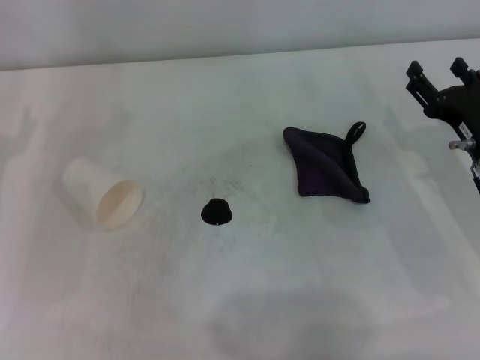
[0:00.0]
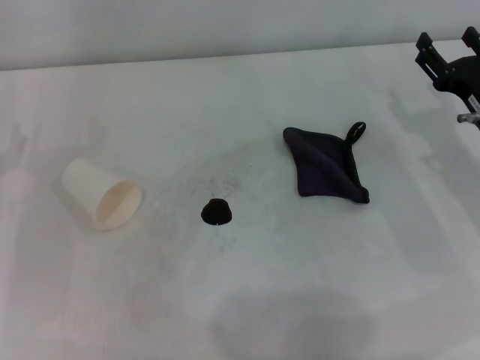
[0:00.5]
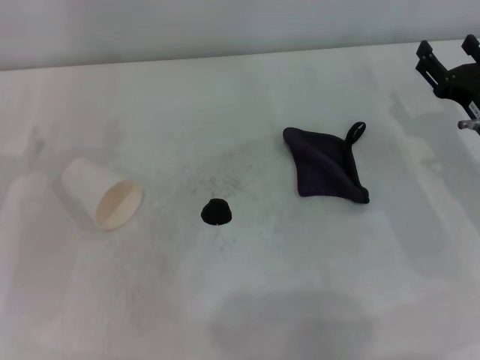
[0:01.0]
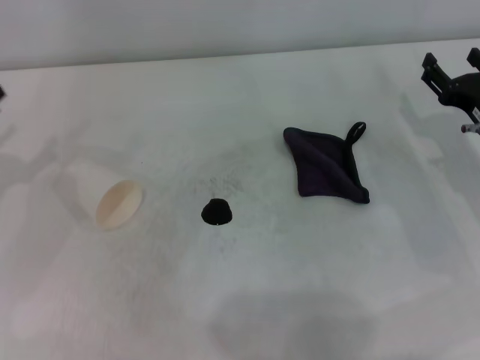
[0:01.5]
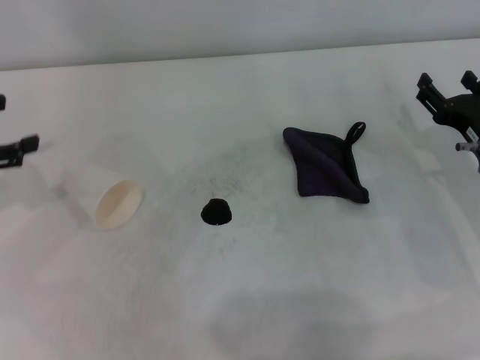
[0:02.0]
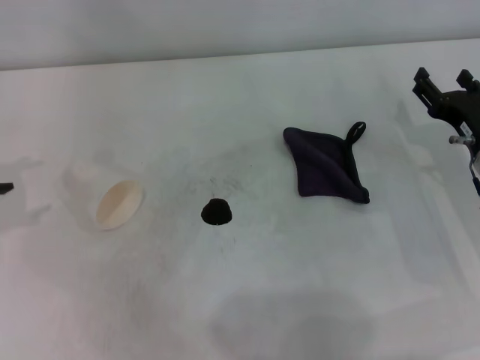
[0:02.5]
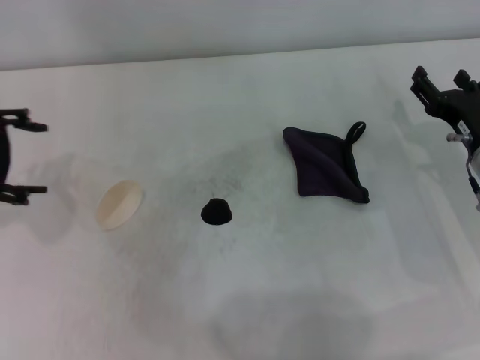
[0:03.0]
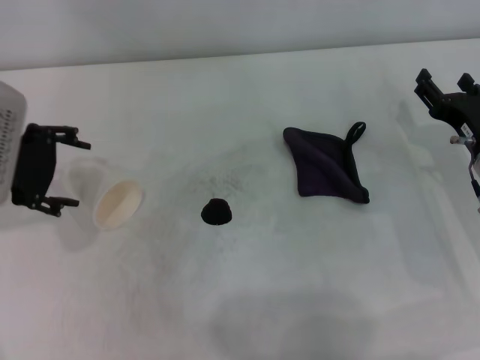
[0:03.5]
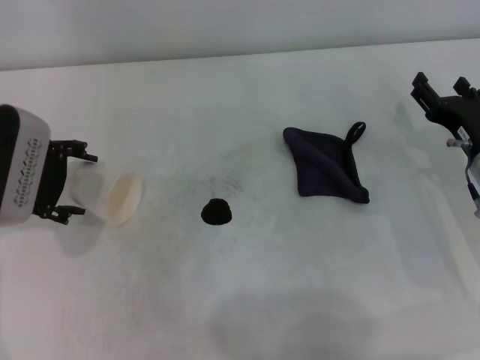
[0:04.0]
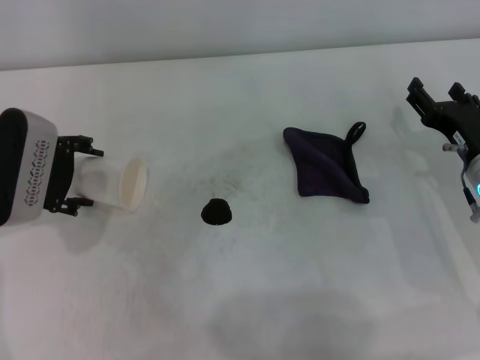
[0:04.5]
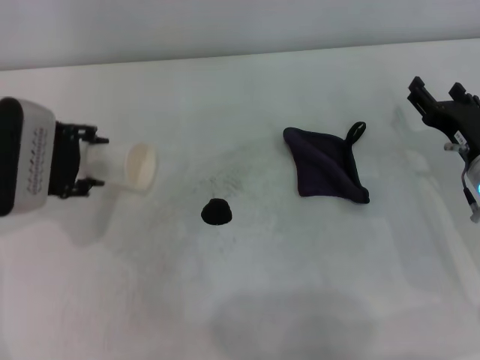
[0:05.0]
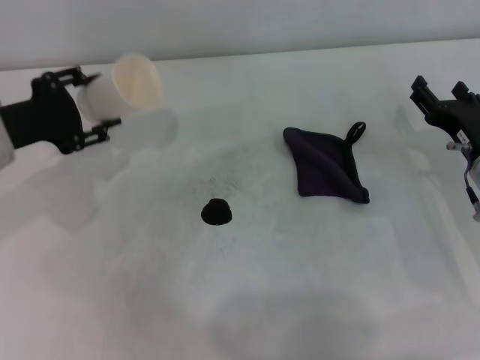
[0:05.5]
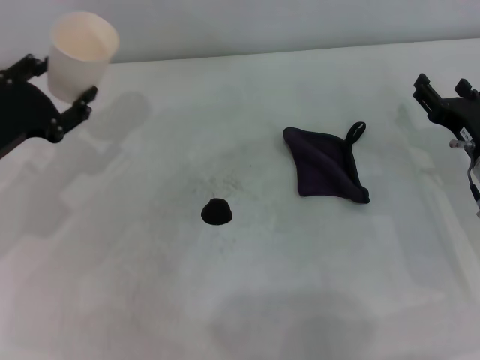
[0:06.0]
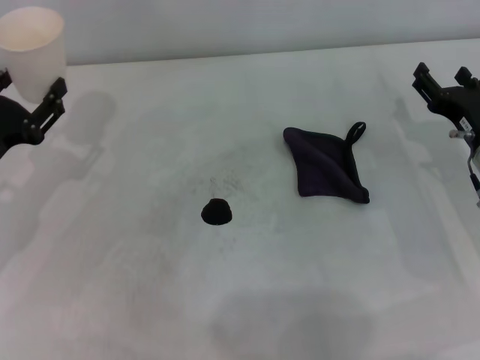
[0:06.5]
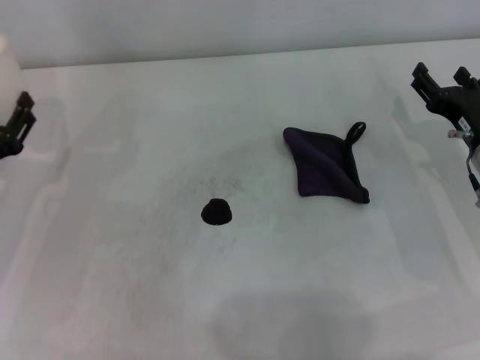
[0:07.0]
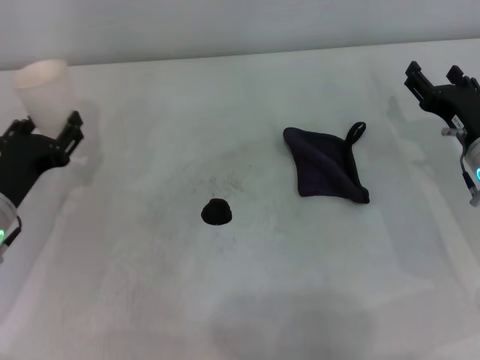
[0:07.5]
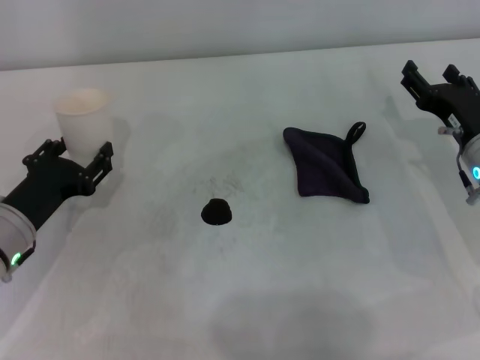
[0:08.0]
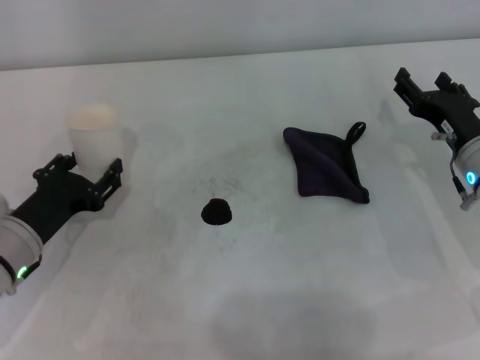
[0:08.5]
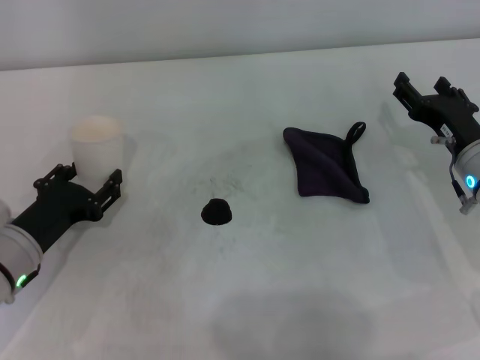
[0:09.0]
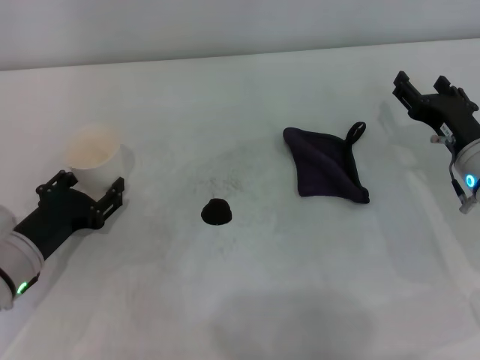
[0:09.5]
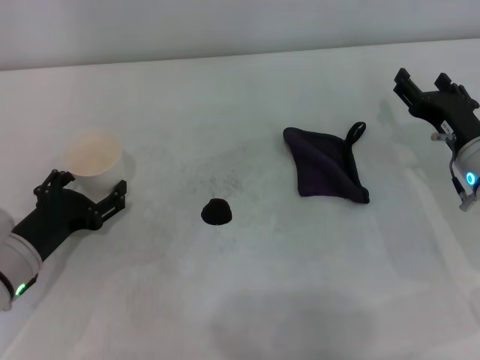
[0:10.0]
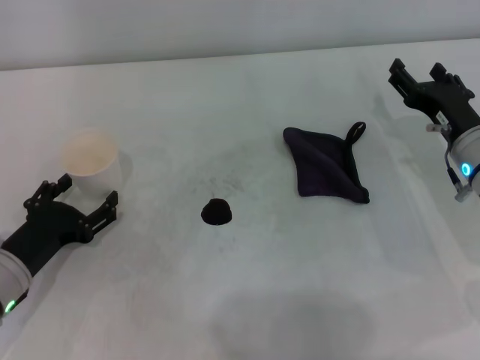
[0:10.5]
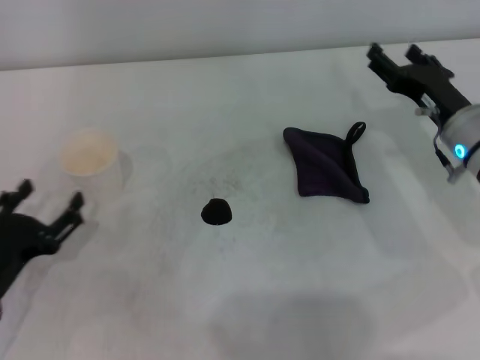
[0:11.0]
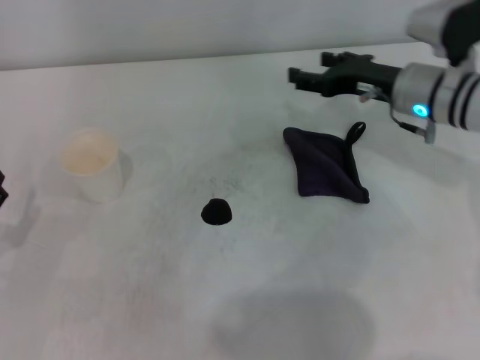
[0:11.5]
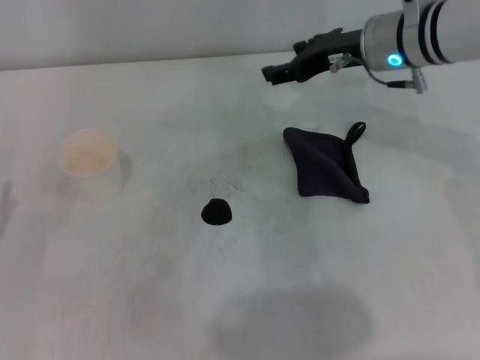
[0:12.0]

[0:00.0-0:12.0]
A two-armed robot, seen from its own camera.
Step, 0:00.0 to 0:04.5: Grasp the paper cup with the left gripper.
Step, 0:05.0 to 0:09.5: Stand the paper cup upright with the left gripper.
0:02.0 to 0:04.0: The left gripper travels to the right by roughly 10 cm.
0:04.0 to 0:06.0: The left gripper closes up.
0:06.0 to 0:08.0: The left gripper shifts some 5 cm downward.
0:08.0 to 0:10.0: The left gripper opens.
0:10.0 to 0:12.0: The right gripper moves upward, forward and to the left, approximately 20 cm. Meanwhile the left gripper travels to the left and backward by approximately 10 cm.

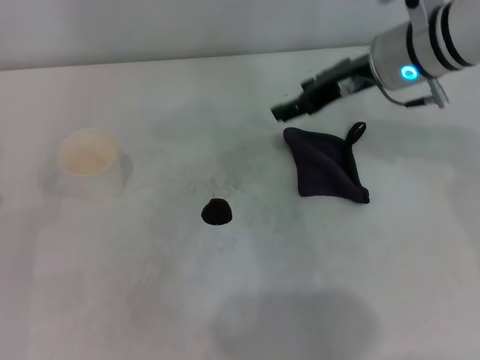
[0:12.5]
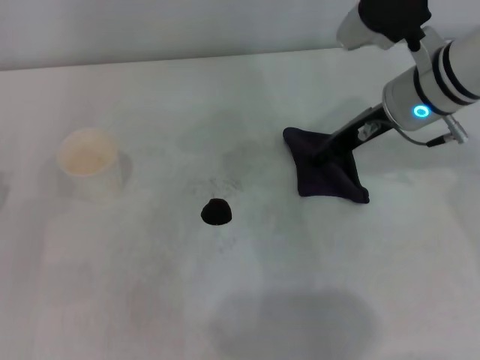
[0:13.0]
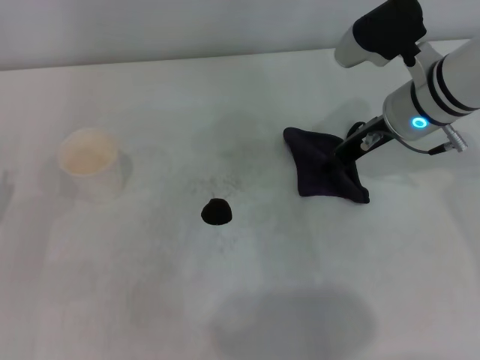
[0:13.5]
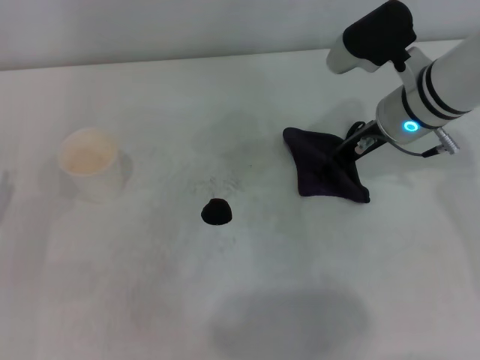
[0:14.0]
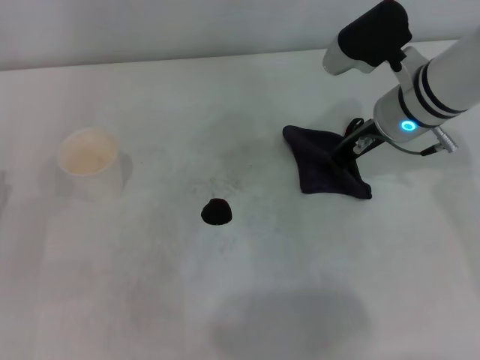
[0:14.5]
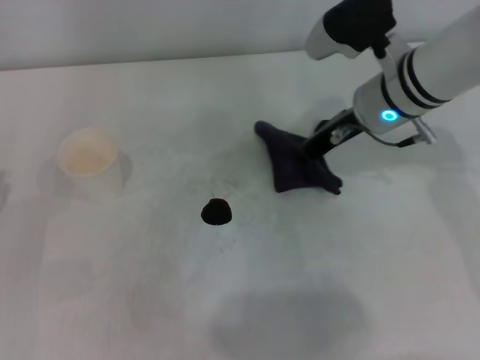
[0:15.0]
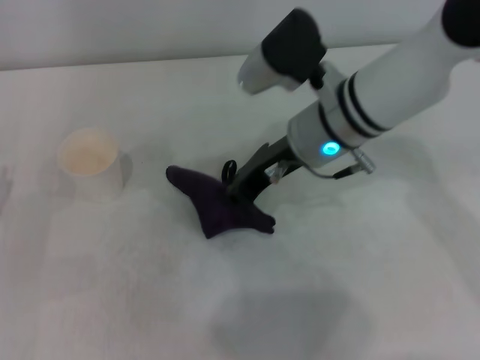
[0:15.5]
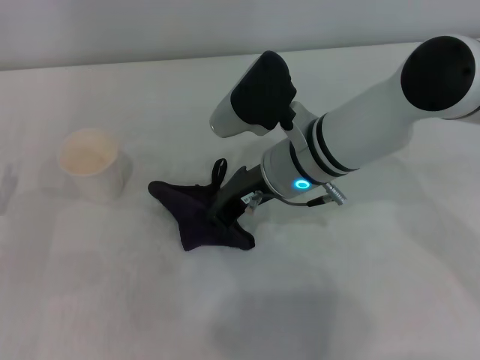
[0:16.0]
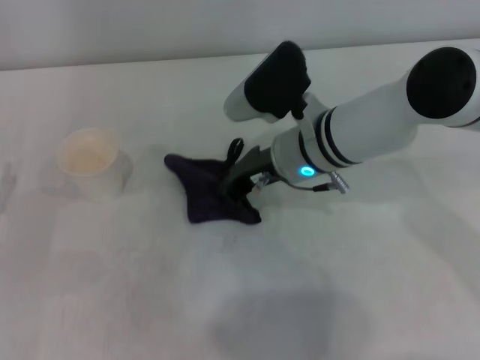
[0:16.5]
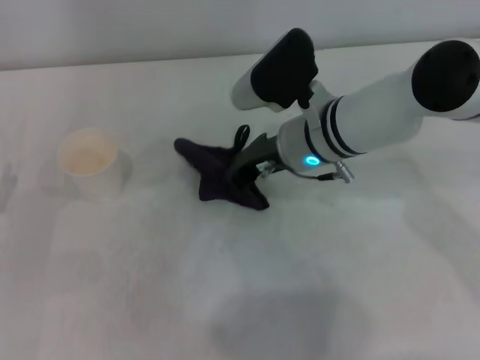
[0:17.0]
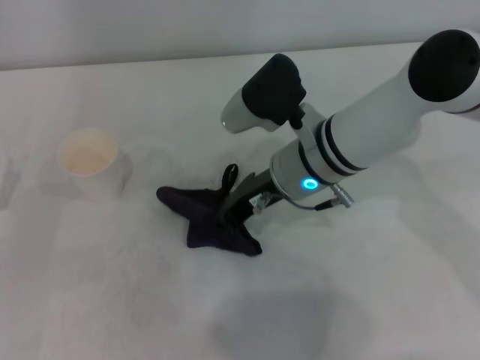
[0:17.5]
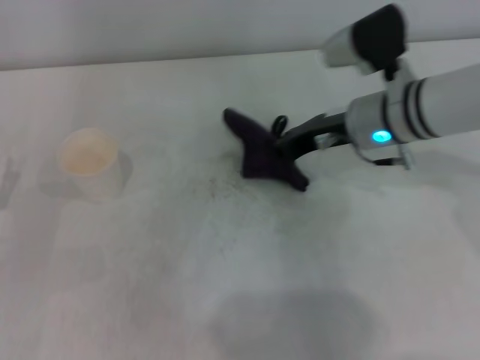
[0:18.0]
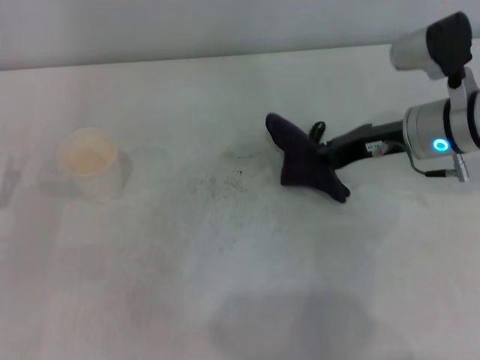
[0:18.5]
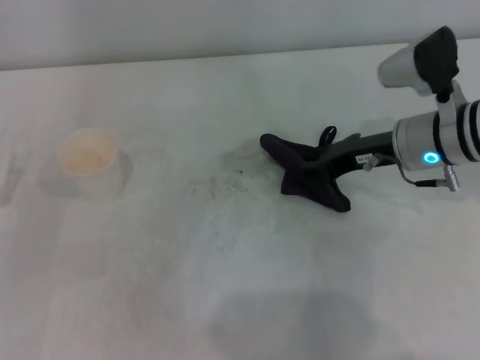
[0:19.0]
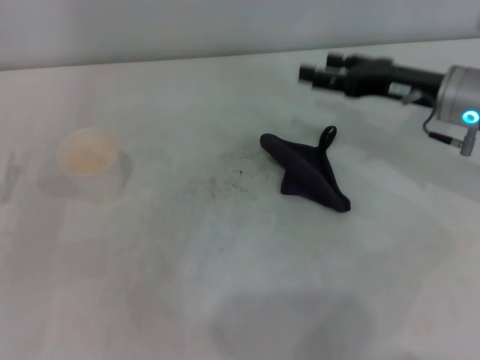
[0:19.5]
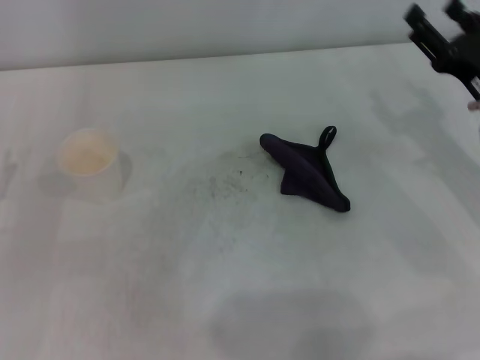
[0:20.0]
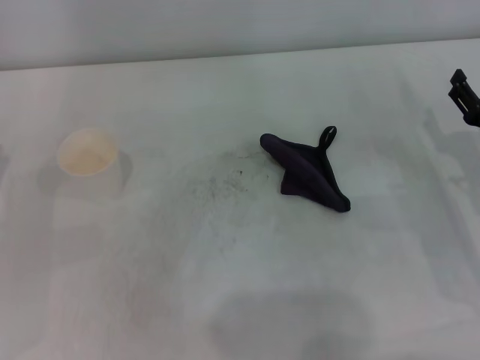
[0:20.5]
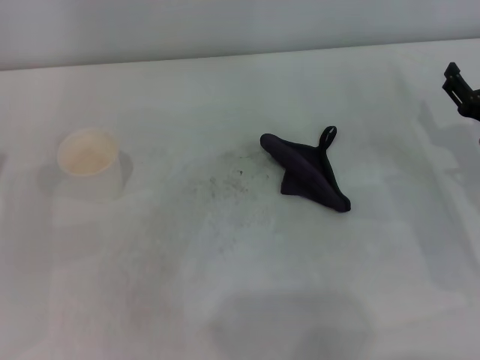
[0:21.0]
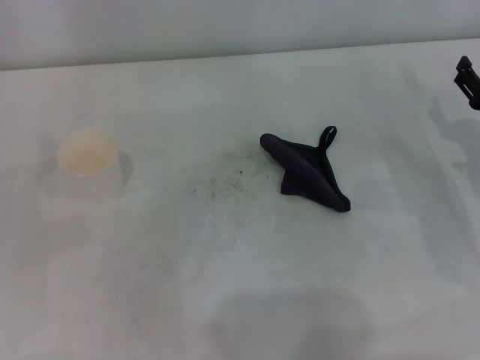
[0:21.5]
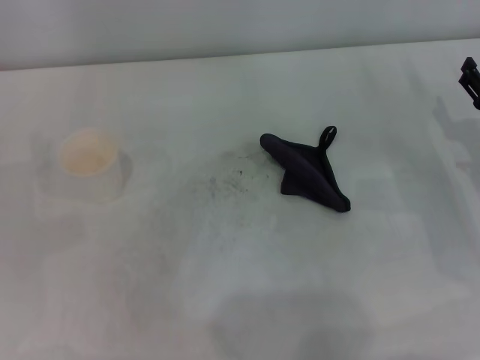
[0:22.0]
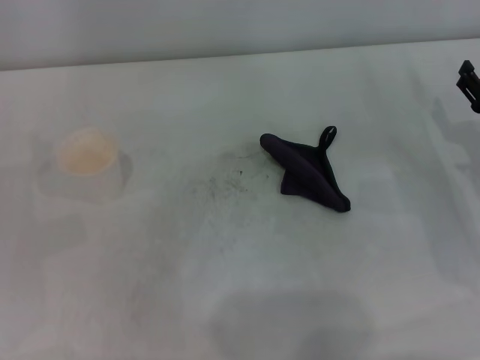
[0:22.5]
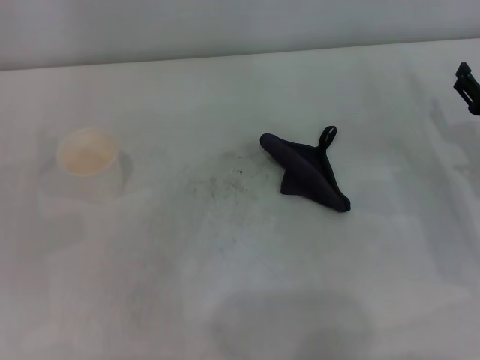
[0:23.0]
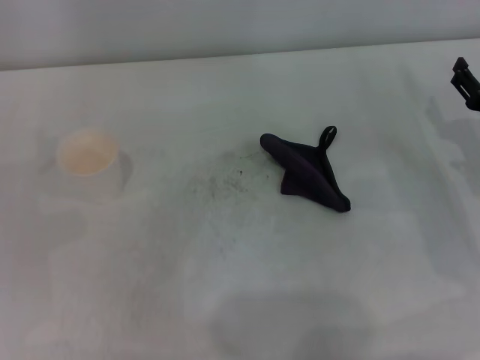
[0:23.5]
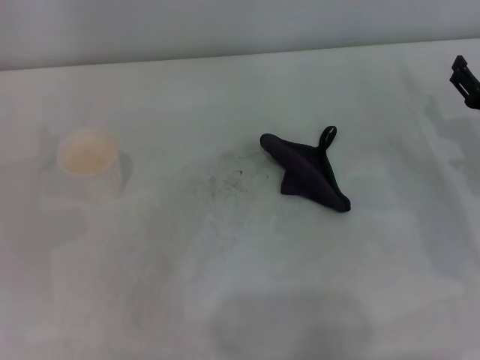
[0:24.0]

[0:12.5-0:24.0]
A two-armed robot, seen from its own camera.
Step, 0:15.0 to 0:18.0: Wipe the stains off the table with the right gripper.
0:12.5 to 0:14.5: The right gripper goes roughly 5 cm downward, and closes.
0:14.5 to 0:16.5: The right gripper goes some 10 cm to the left.
0:16.5 to 0:18.5: The right gripper travels to the right by some 15 cm.
0:18.5 to 0:20.0: The right gripper goes roughly 10 cm to the right and backward, and opens up.
0:22.0 to 0:24.0: Neither gripper changes place.

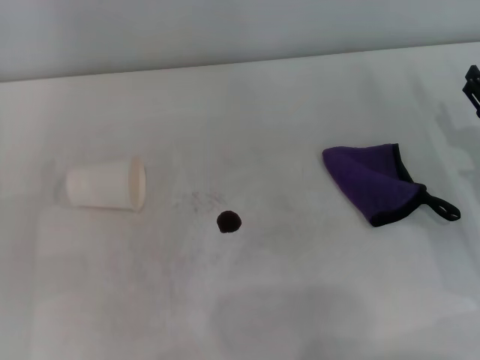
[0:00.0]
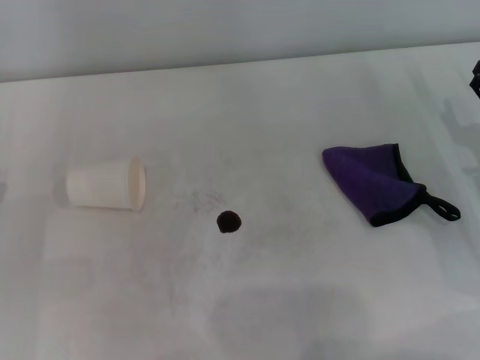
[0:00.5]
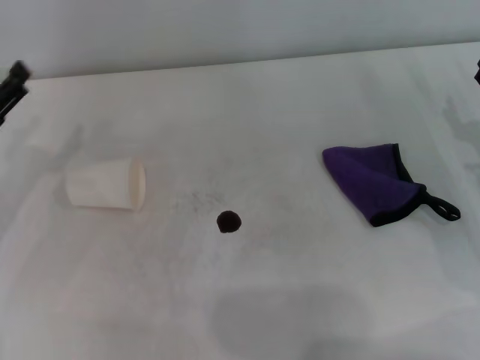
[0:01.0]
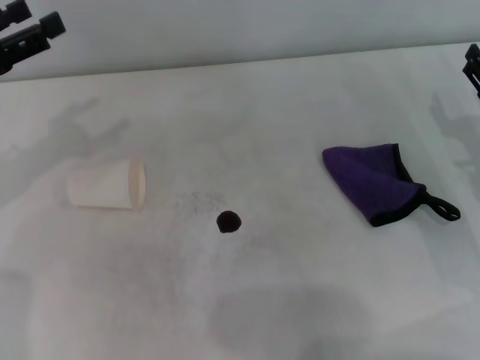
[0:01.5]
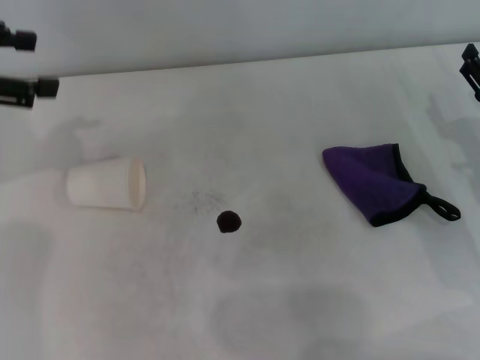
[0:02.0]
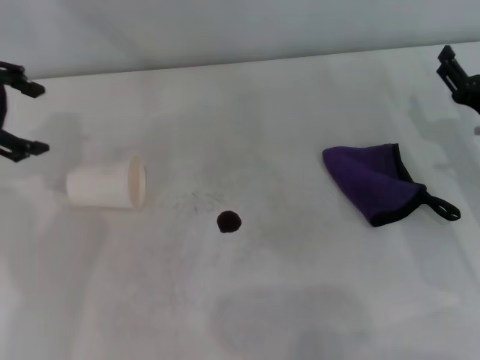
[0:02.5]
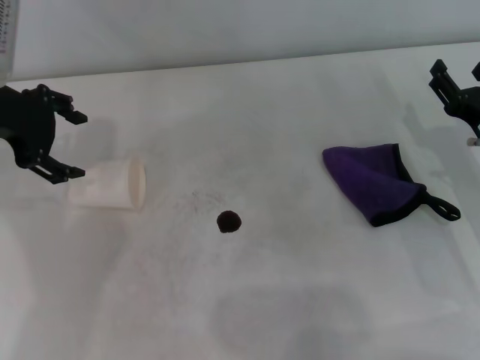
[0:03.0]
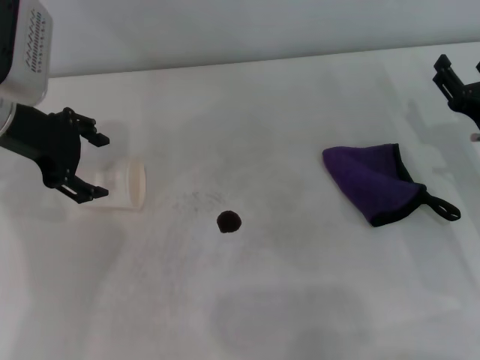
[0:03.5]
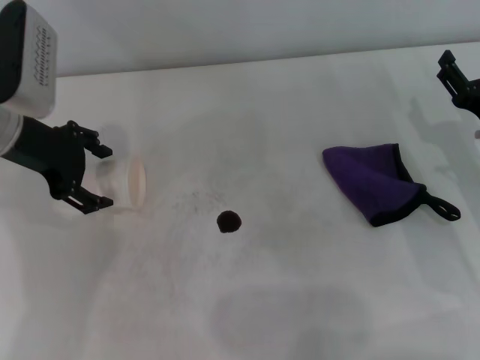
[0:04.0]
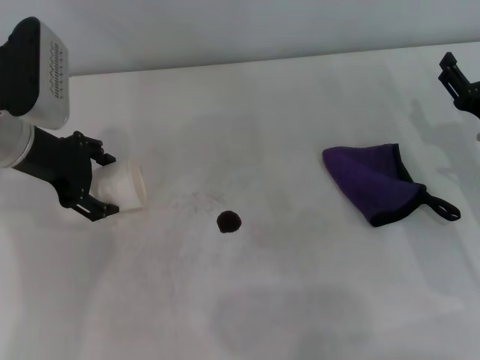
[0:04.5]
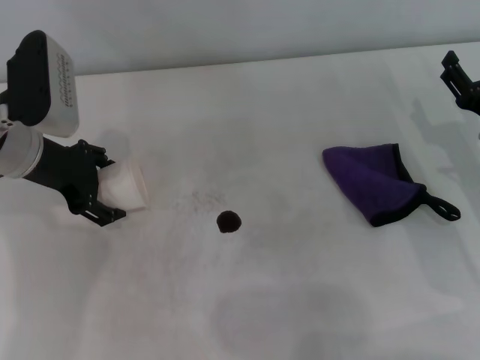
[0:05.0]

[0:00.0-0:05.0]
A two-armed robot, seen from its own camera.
Step, 0:00.0 to 0:04.5: Grasp the paper cup with the left gripper.
0:00.0 to 0:02.5: The left gripper travels upward and forward by some 25 cm.
0:02.5 to 0:05.0: The left gripper travels downward and to the right by about 15 cm.